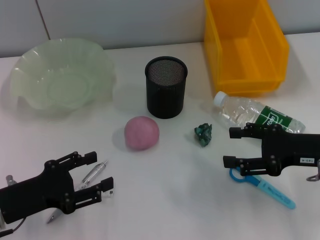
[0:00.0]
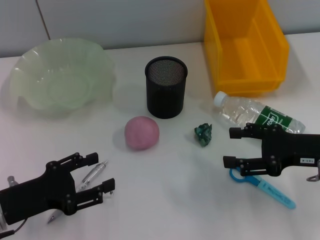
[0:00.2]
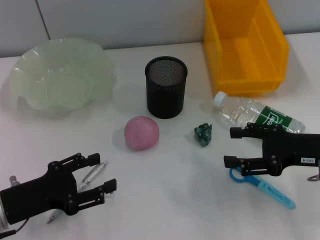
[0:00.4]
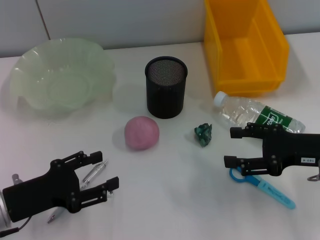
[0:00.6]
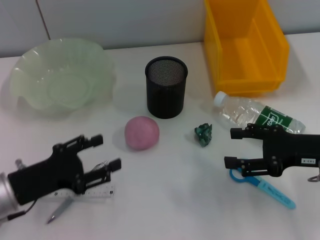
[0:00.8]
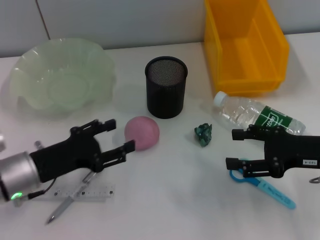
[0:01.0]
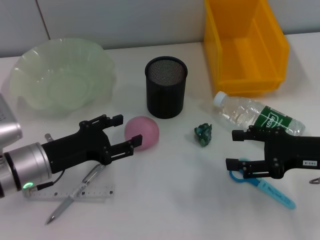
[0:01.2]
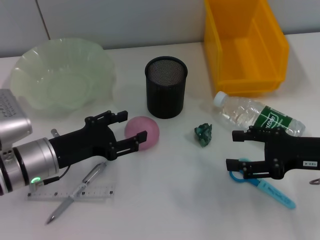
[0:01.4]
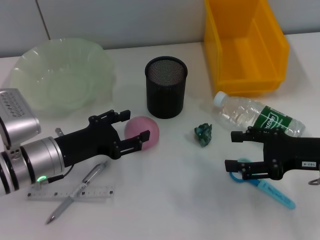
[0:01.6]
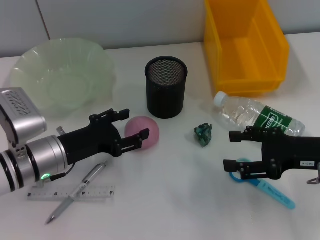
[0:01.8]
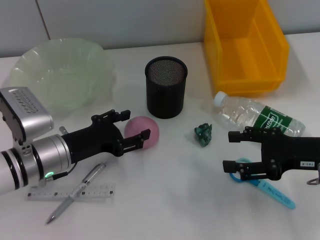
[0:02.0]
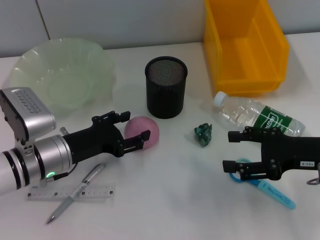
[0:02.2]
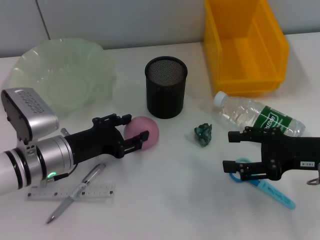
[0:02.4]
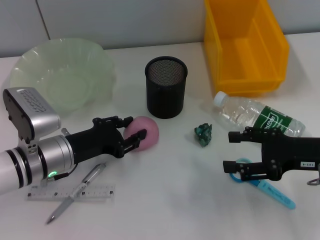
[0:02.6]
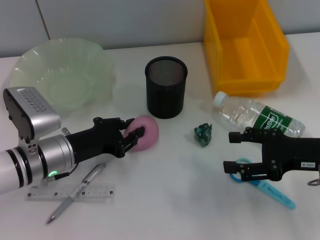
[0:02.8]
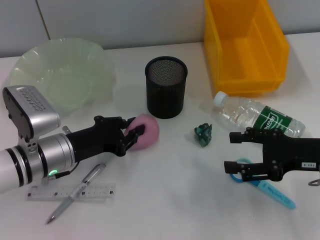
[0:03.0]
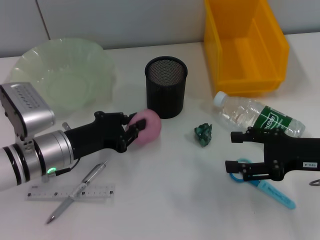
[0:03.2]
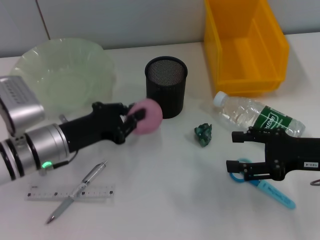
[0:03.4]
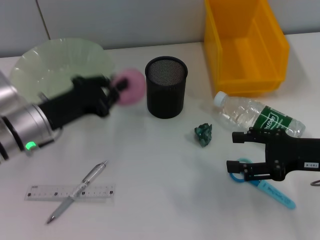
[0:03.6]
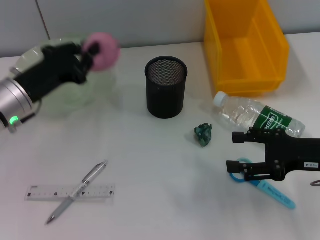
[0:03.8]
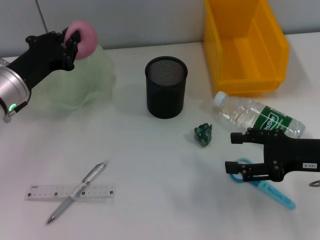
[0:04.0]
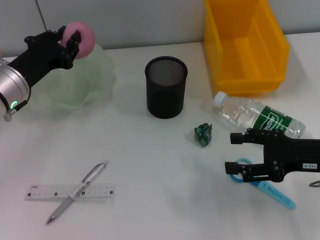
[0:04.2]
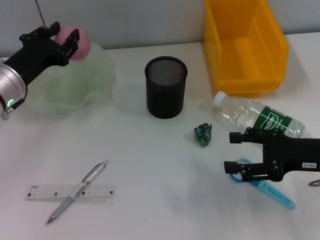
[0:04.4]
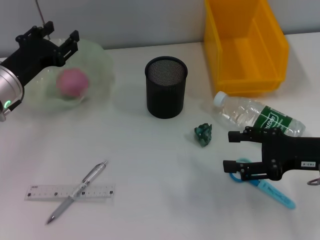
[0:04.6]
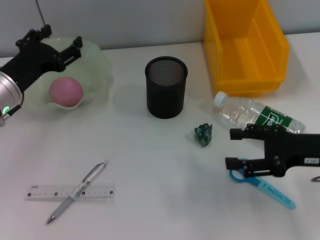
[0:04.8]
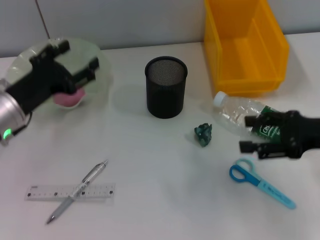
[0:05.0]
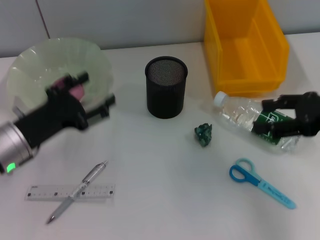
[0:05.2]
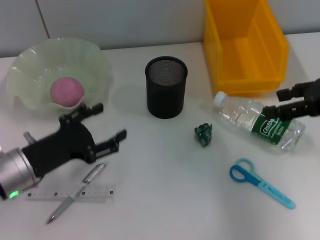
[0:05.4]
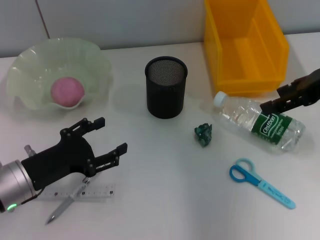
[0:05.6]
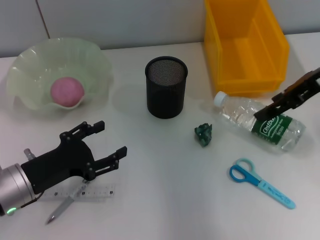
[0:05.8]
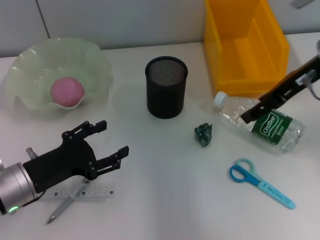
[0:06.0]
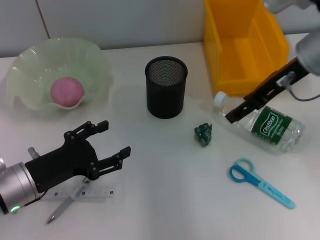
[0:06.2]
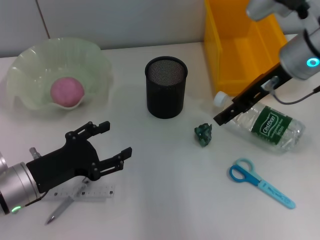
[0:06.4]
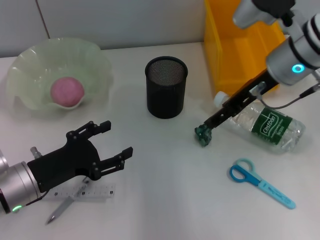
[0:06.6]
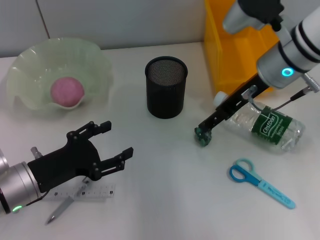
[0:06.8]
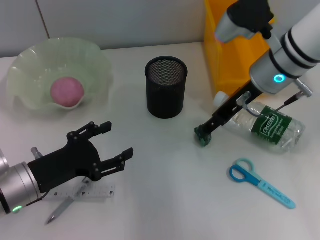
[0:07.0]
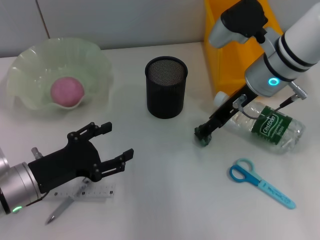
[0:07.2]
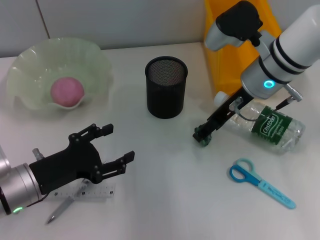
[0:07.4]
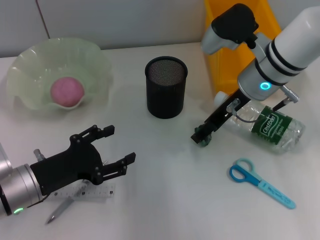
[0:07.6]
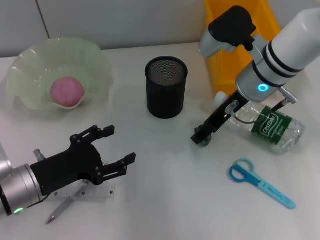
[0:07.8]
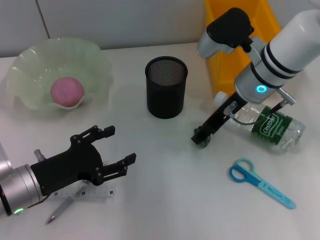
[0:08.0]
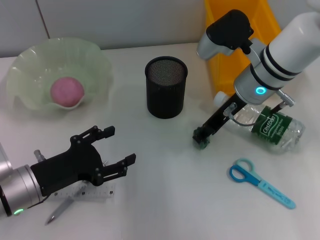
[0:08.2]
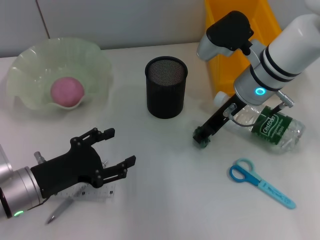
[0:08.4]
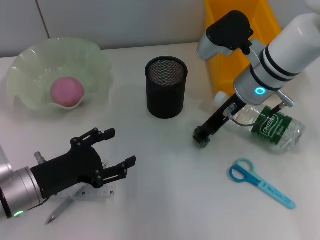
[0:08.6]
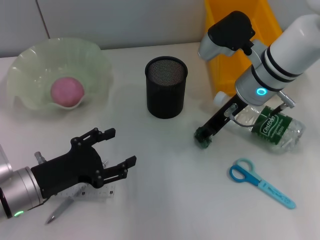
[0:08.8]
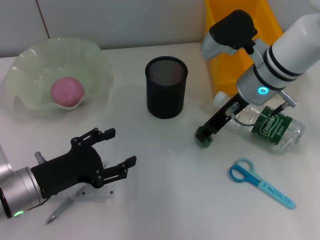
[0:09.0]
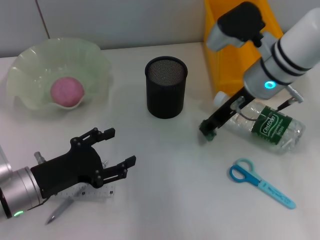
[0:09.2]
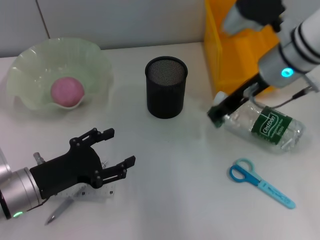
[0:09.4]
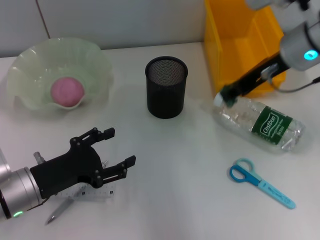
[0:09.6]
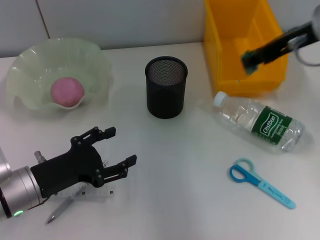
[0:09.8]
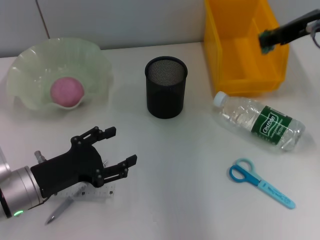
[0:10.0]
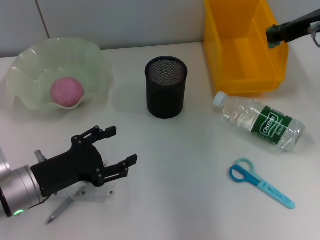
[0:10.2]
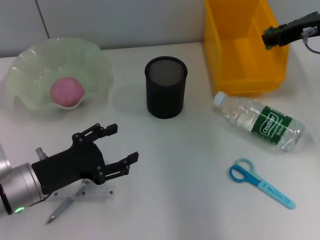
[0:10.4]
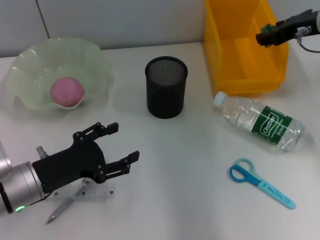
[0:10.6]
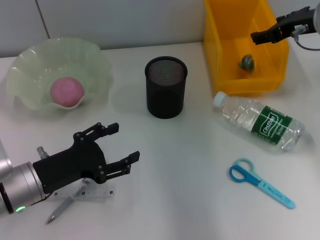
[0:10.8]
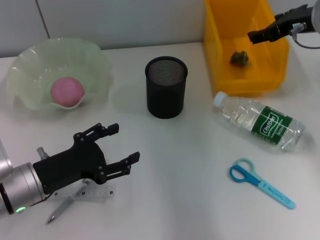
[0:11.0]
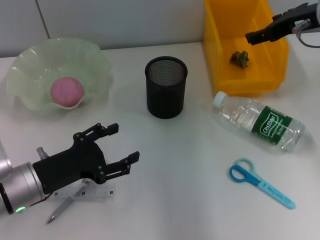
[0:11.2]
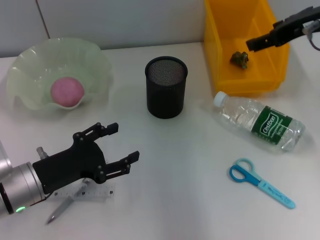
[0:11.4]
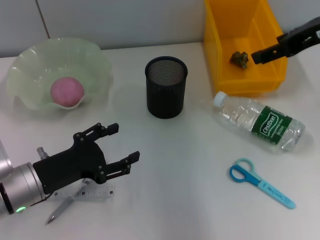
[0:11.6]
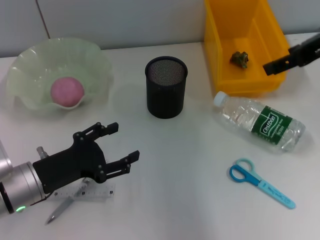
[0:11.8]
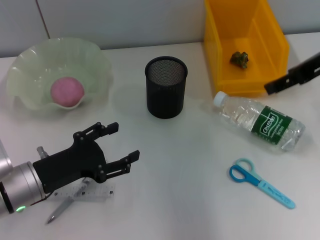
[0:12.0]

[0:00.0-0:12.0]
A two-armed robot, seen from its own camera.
Step, 0:00.0 to 0:02.6: Grab the peach with the left hand.
Step, 0:02.8 to 0:04.6: Place the peach into the fruit bowl with the left hand.
Step, 0:04.8 to 0:08.4: Grab the plastic with the right hand.
Step, 0:08.6 to 0:10.8: Place the plastic into the trash can with the right hand.
0:00.0 to 0:01.6: The left gripper travels forward and to the right by about 10 cm.
0:01.6 to 0:03.0: The left gripper closes up.
0:03.0 to 0:04.4: The left gripper is displaced forward, upward and to the left by about 10 cm.
0:04.4 to 0:06.0: The right gripper moves upward and forward, approximately 15 cm; the left gripper is displaced backward and downward by approximately 15 cm, and opens up.
0:06.0 to 0:07.6: The right gripper goes roughly 10 cm to the left and downward.
0:07.6 to 0:09.0: The right gripper closes up.
0:09.0 to 0:10.4: The right gripper travels to the right and upward by roughly 15 cm.
0:10.4 to 0:12.0: The right gripper goes some 5 cm backward, and opens up.

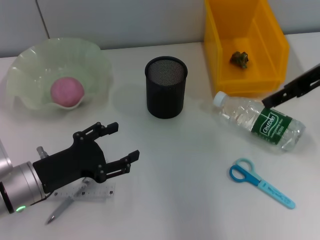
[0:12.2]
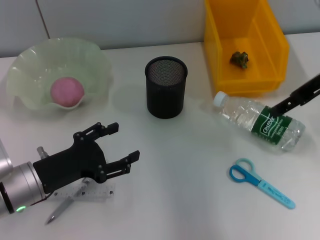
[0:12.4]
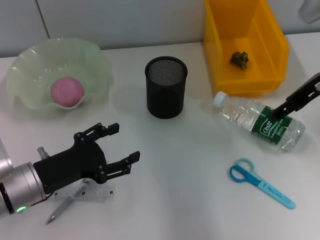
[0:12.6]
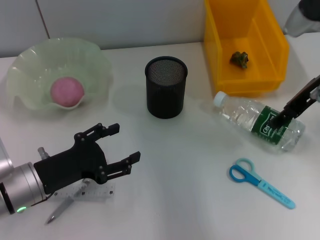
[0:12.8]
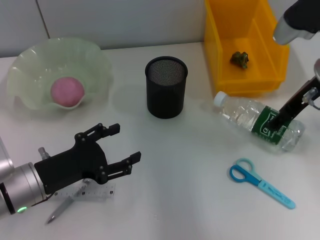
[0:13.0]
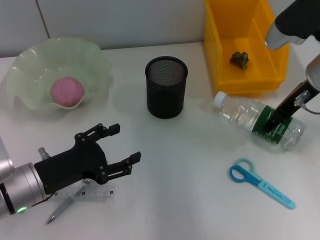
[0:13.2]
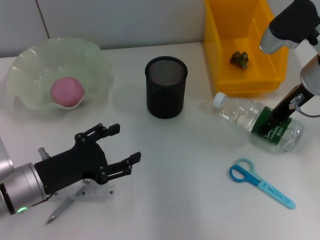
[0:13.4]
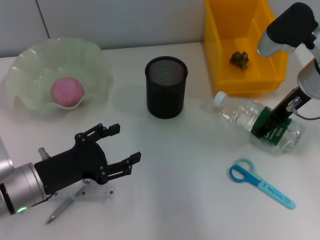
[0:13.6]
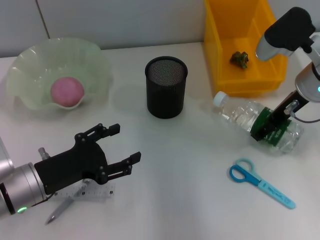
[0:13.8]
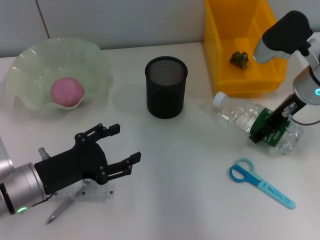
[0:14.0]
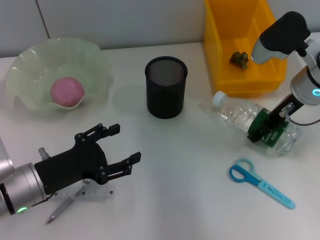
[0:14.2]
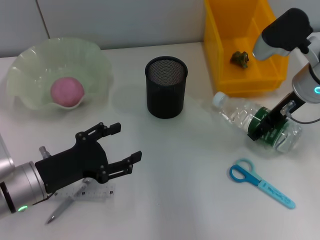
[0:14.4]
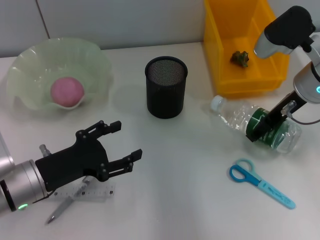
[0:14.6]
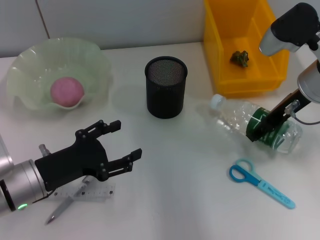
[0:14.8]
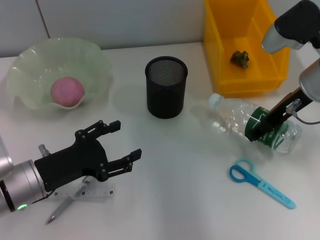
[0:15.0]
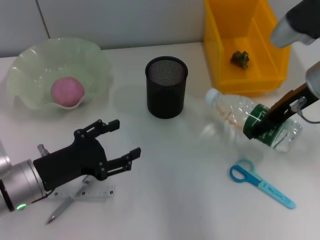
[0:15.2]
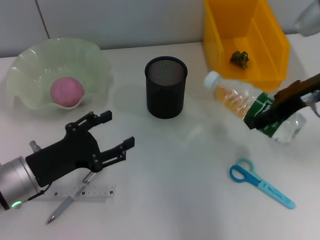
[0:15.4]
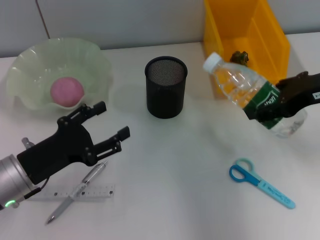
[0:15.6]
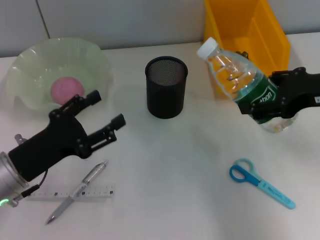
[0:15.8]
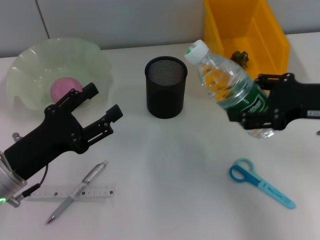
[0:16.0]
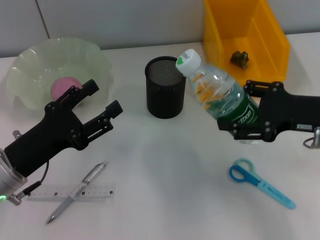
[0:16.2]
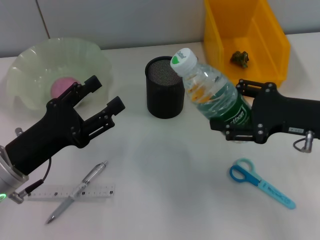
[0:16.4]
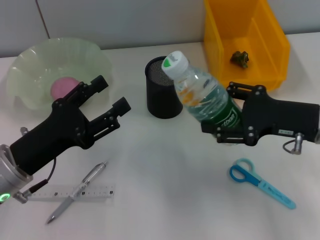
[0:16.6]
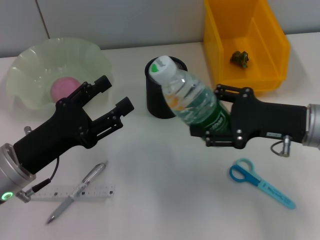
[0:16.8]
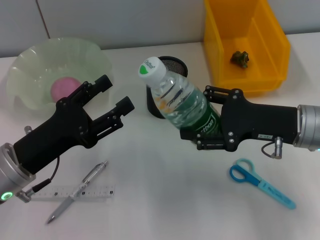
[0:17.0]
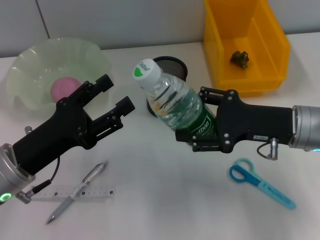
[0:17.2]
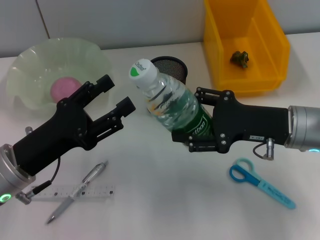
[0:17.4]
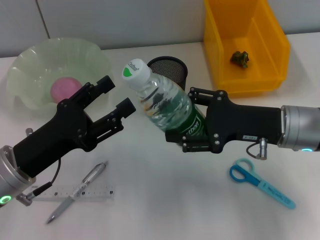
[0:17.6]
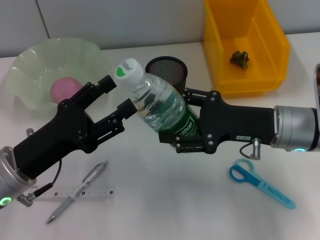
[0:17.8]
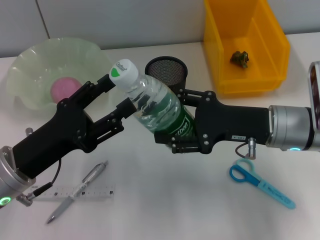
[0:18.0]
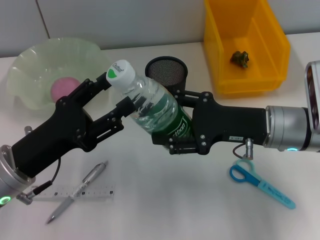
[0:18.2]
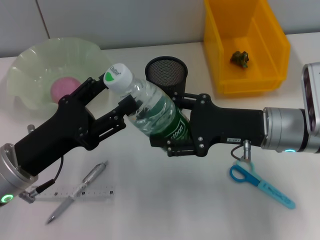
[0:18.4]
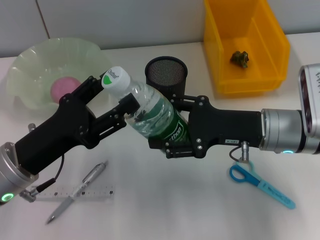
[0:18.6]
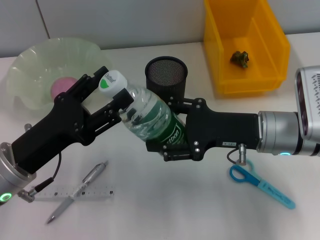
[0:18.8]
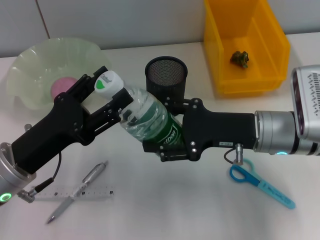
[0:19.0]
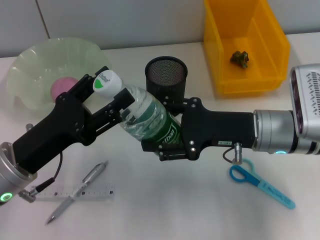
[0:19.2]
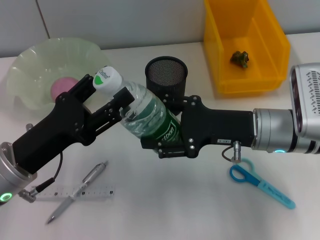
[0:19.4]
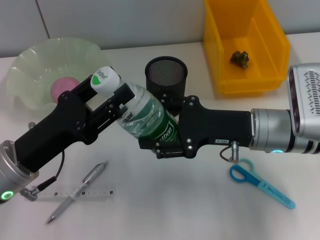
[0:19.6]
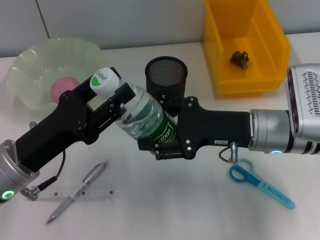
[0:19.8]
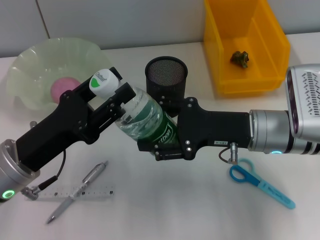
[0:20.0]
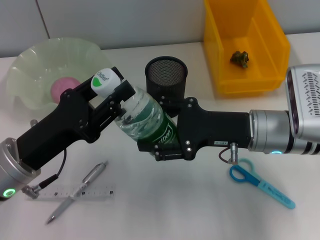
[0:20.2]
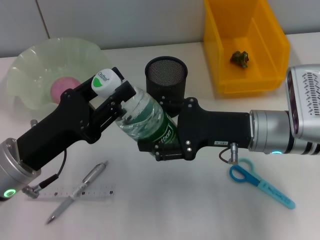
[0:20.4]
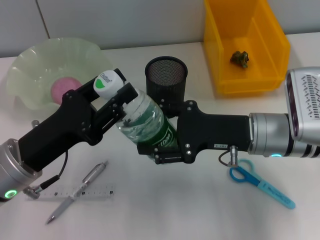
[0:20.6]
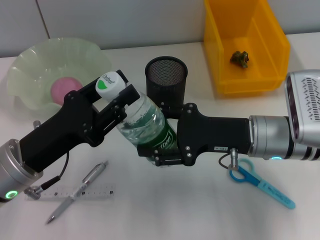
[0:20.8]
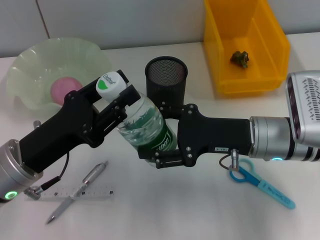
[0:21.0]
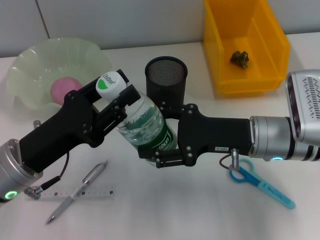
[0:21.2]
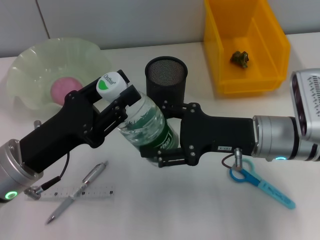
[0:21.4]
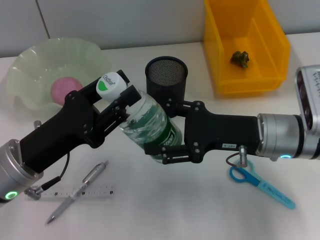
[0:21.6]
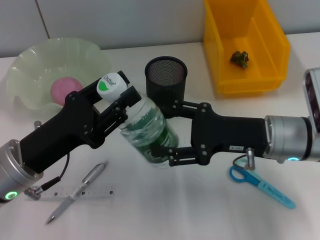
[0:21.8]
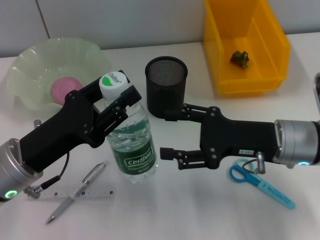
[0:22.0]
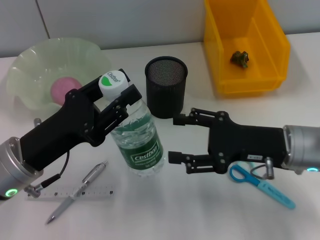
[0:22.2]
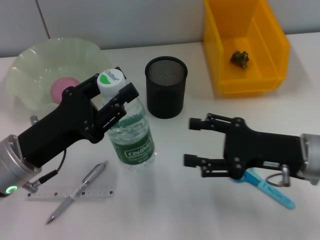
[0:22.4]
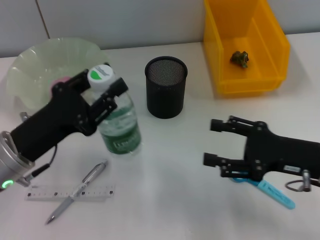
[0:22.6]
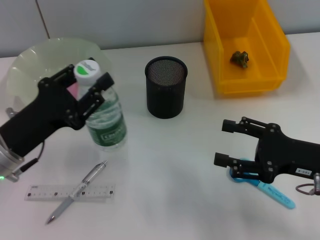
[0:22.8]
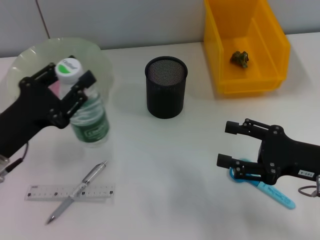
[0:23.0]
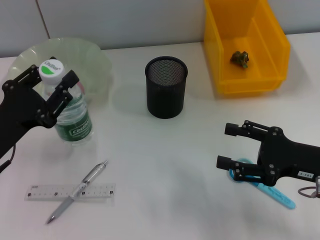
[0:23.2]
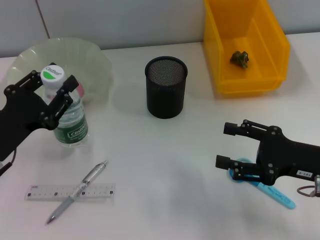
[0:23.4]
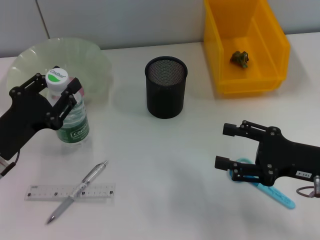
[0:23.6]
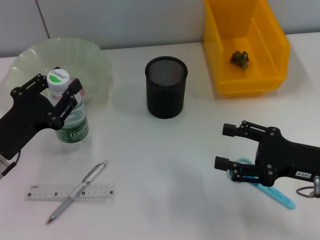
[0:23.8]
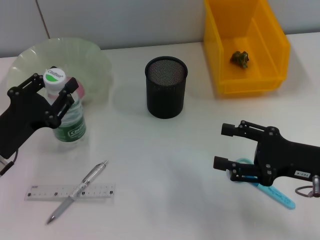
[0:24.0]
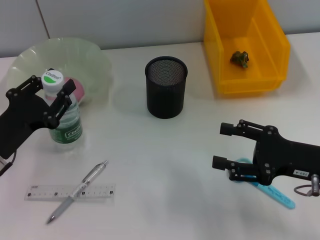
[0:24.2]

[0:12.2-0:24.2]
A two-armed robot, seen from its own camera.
Step, 0:12.2 to 0:14.0: Grab the water bottle with the right hand.
Step, 0:14.2 to 0:21.6: Pass the water bottle from the right hand to the left hand.
0:12.2 to 0:13.8: The right gripper heads downward, covering some 10 cm.
0:13.8 to 0:15.2: The grippers move only a little.
0:15.2 to 0:16.6: The right gripper travels backward and downward by roughly 10 cm.
0:16.6 to 0:18.2: The right gripper heads to the left, covering some 5 cm.
0:18.2 to 0:19.8: The grippers make only small movements.
0:19.8 to 0:21.2: The two grippers keep their place.
0:21.2 to 0:22.6: The right gripper goes roughly 10 cm to the right and backward.
0:22.6 to 0:24.2: The left gripper ends up approximately 5 cm from where it was.
